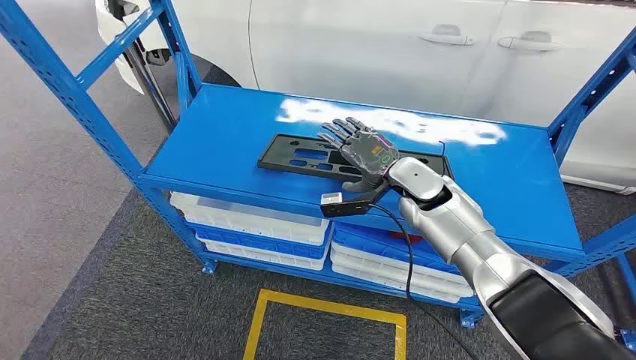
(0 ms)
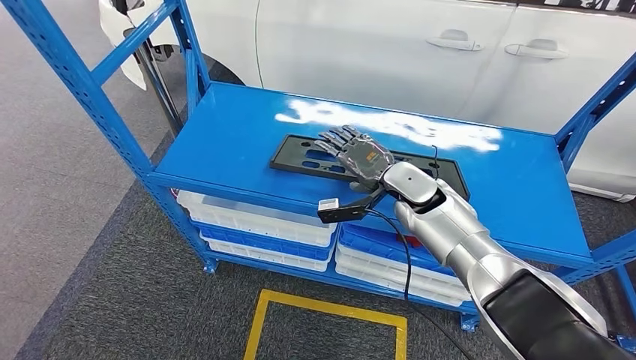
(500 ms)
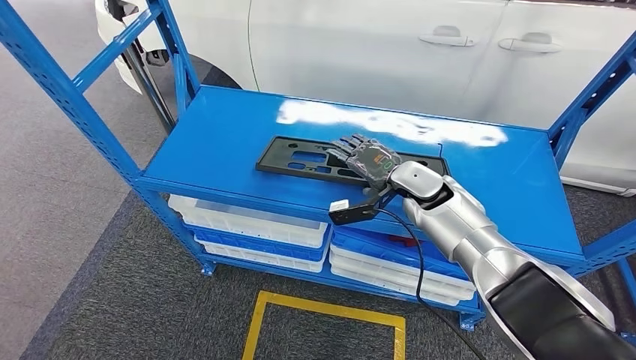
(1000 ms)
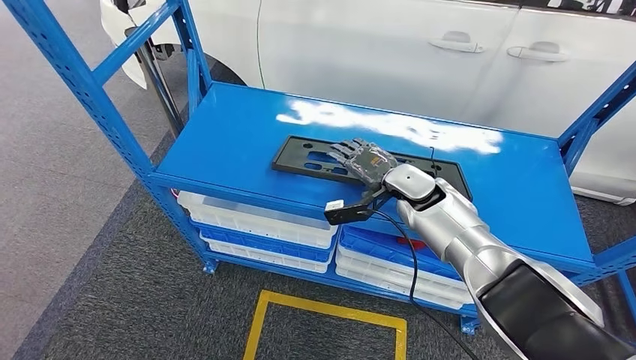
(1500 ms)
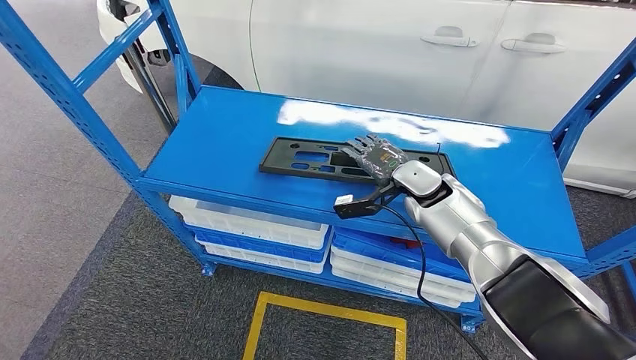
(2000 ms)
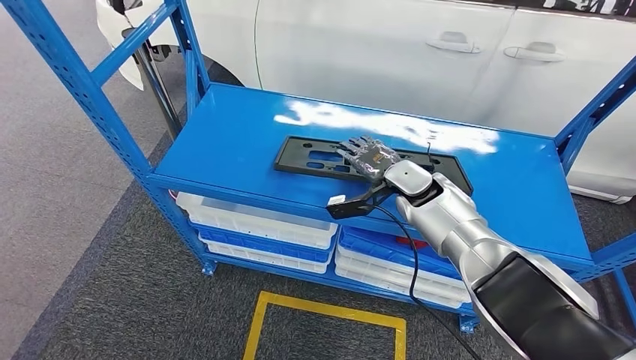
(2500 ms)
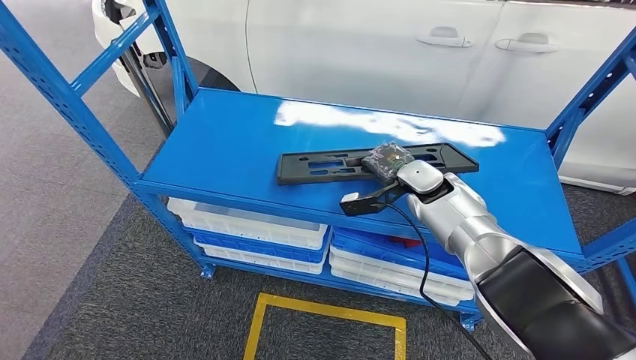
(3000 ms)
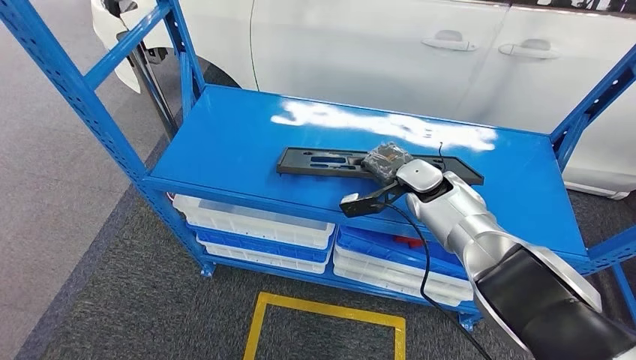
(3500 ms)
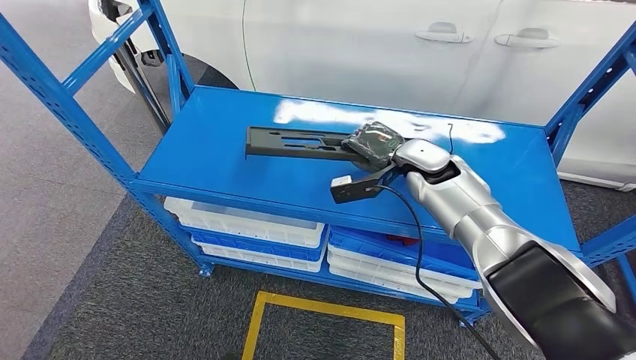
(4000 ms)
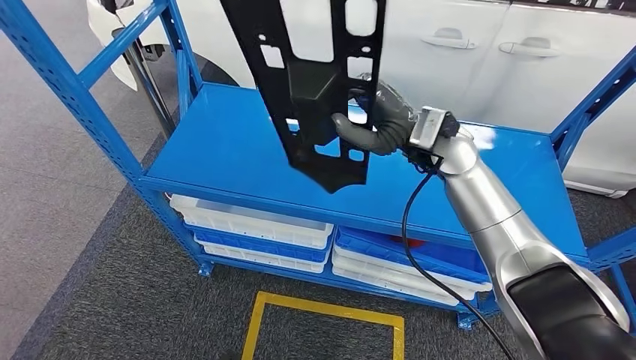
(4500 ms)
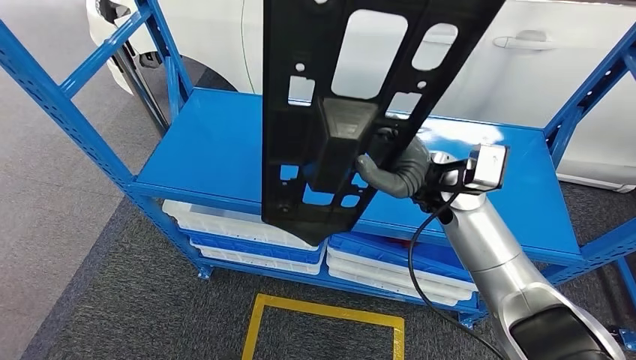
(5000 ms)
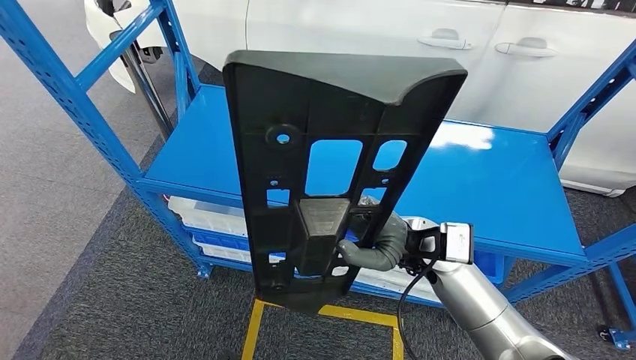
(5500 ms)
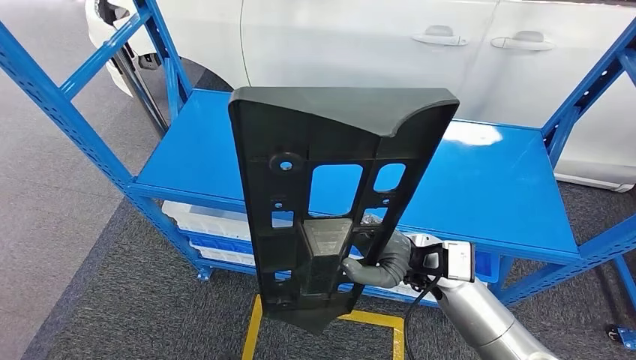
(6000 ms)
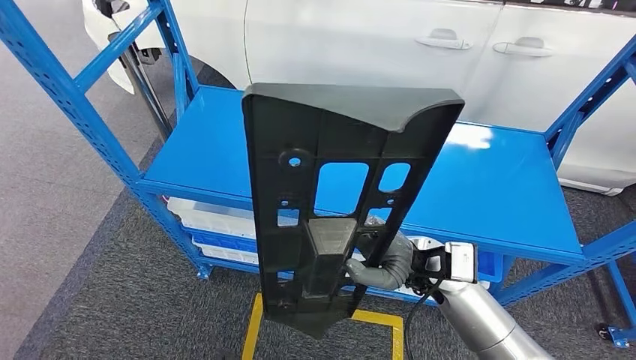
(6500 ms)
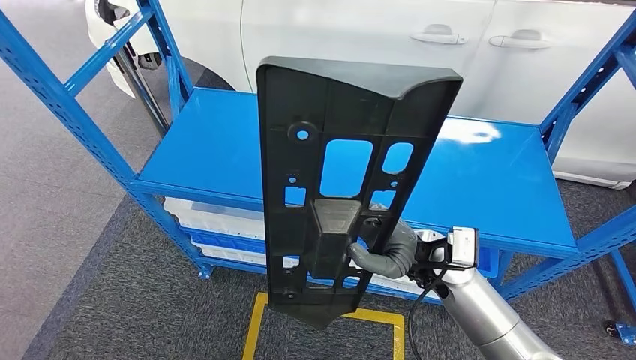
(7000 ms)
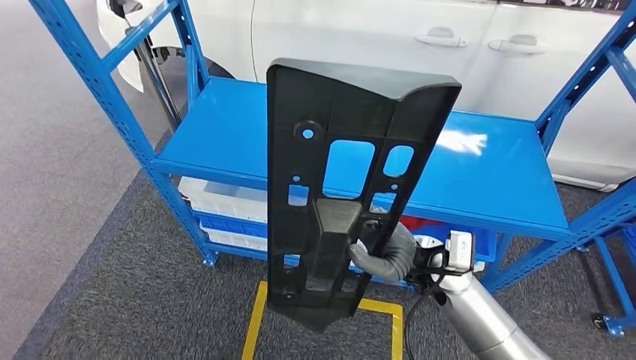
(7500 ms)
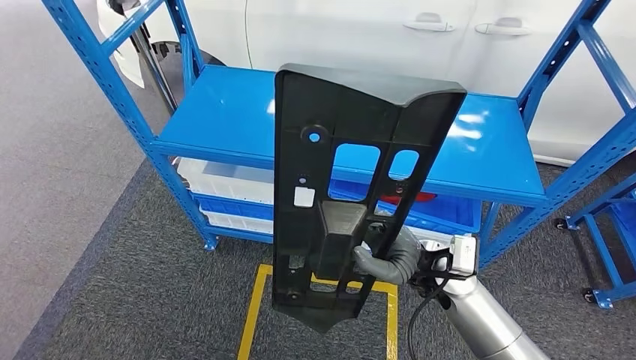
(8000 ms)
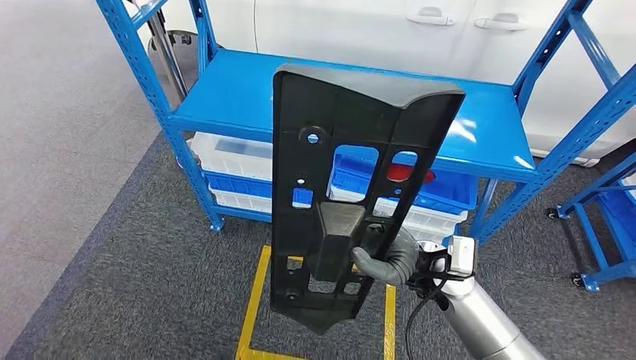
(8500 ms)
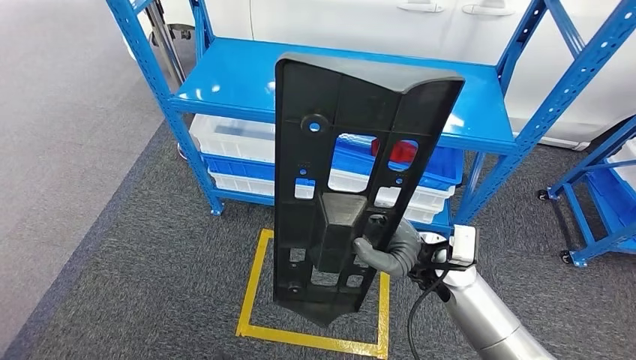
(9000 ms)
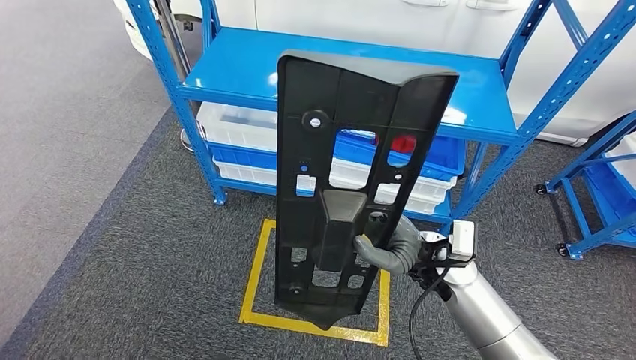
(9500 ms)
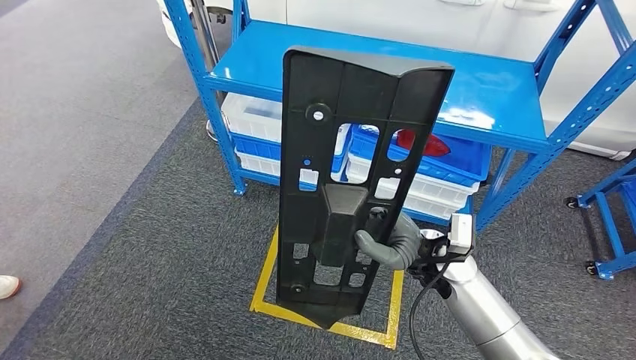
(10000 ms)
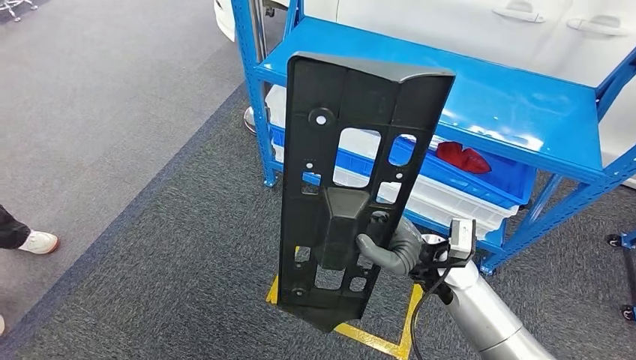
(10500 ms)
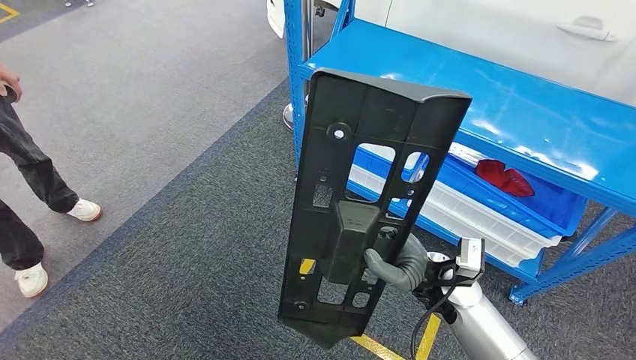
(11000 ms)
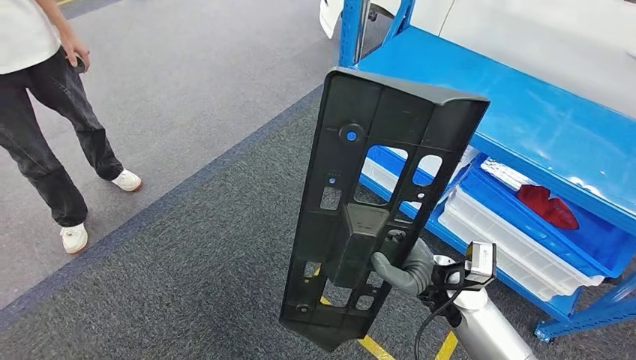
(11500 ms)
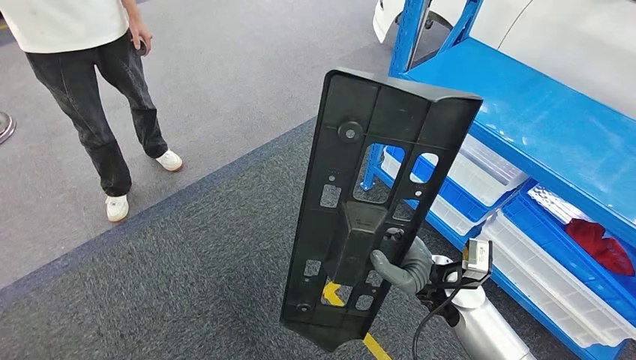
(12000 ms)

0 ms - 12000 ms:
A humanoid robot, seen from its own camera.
Step, 0 ms - 4500 ms: Pick up the large material from the shelf.

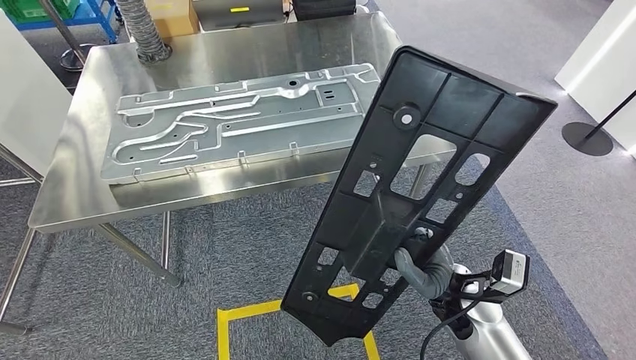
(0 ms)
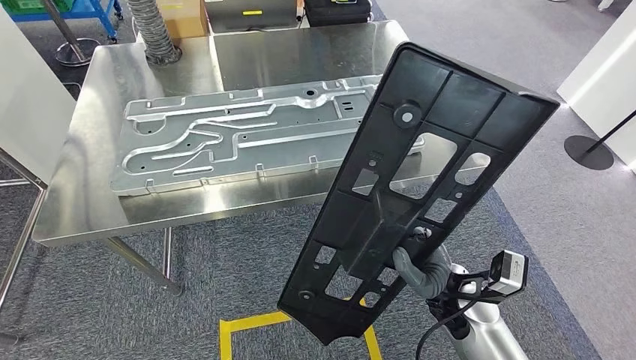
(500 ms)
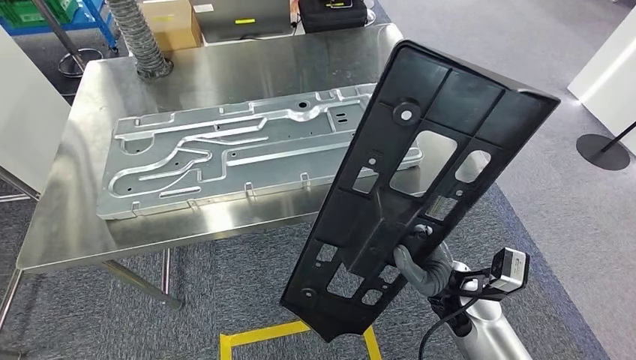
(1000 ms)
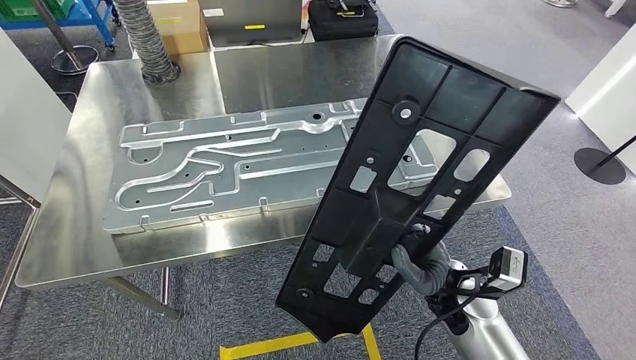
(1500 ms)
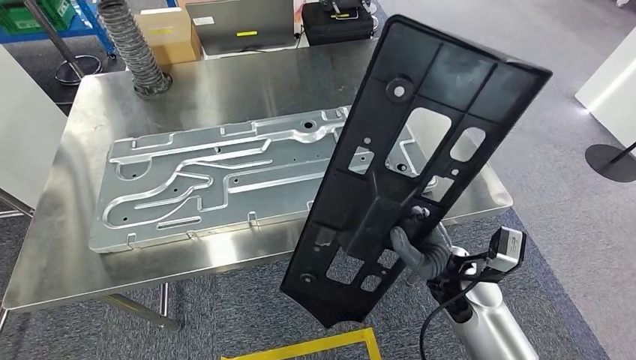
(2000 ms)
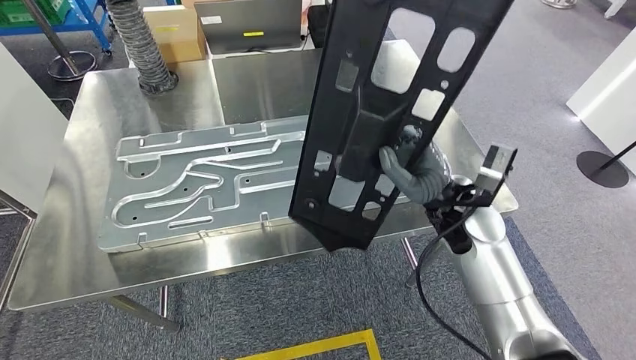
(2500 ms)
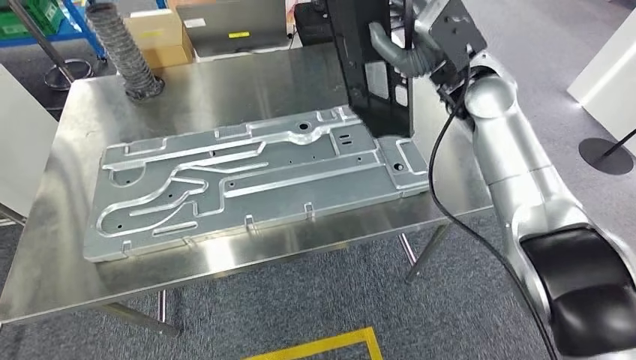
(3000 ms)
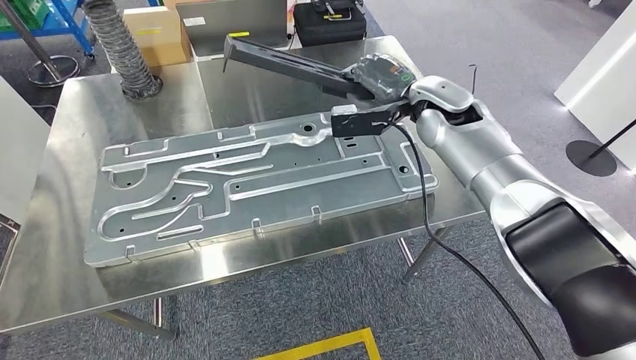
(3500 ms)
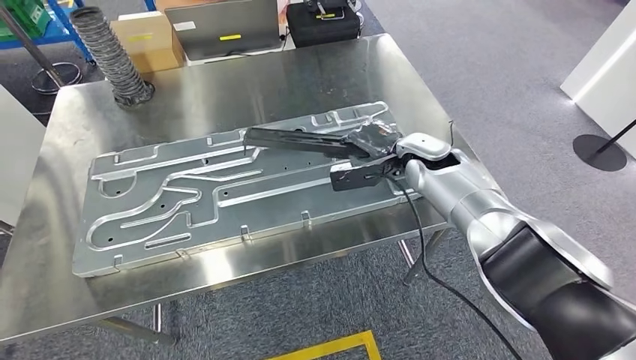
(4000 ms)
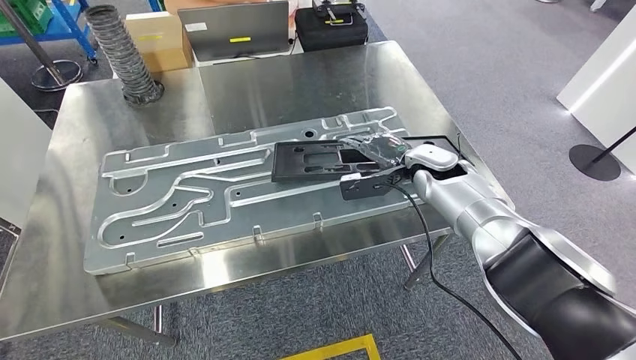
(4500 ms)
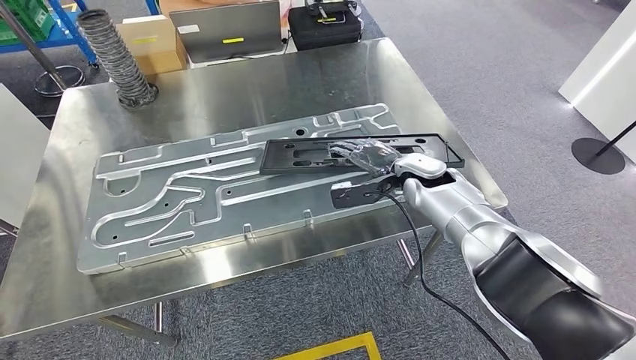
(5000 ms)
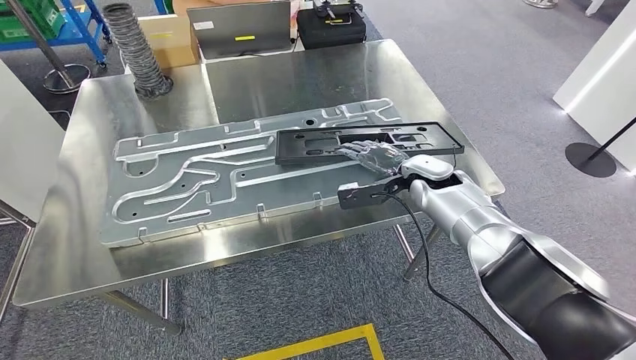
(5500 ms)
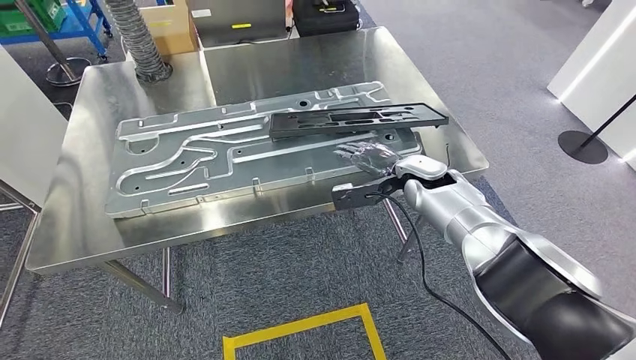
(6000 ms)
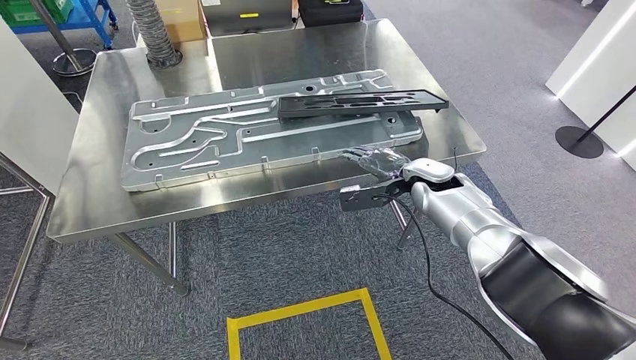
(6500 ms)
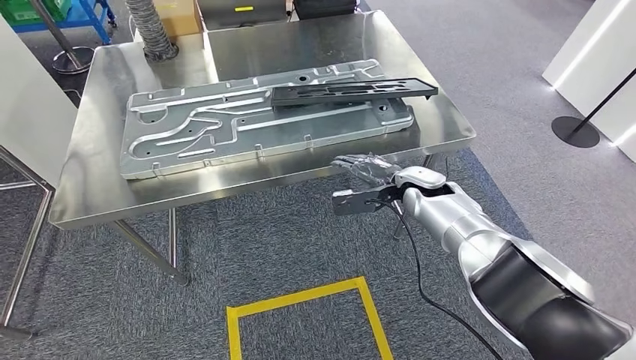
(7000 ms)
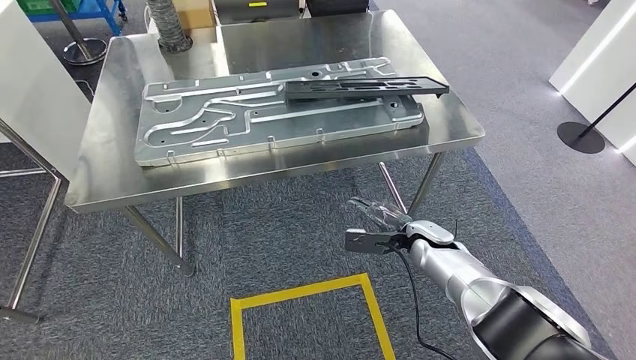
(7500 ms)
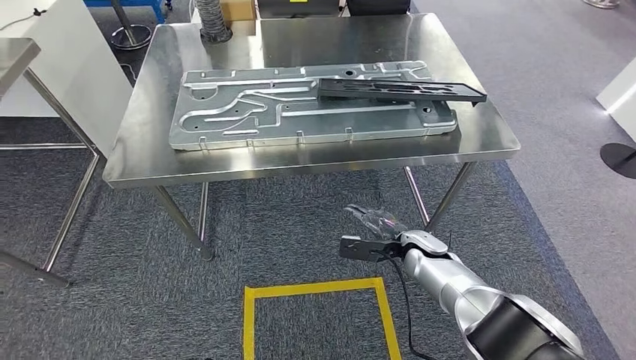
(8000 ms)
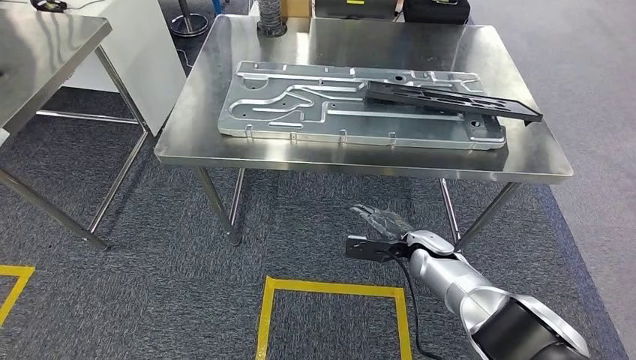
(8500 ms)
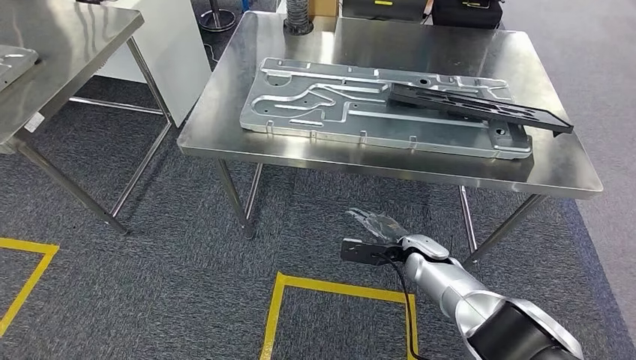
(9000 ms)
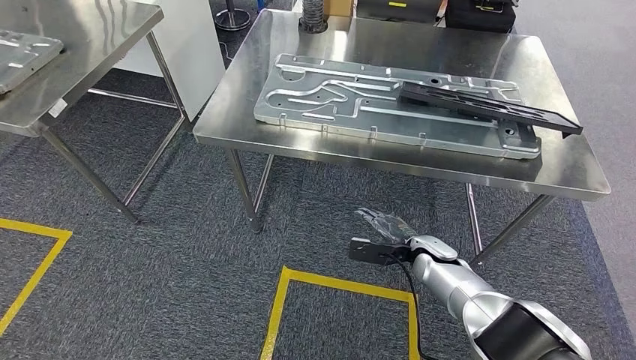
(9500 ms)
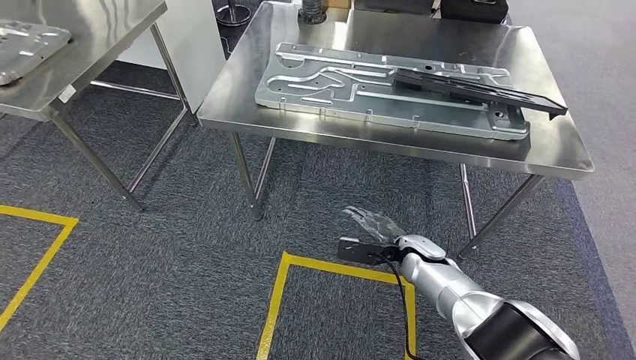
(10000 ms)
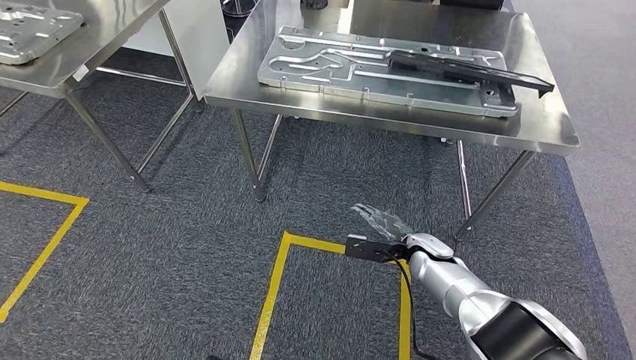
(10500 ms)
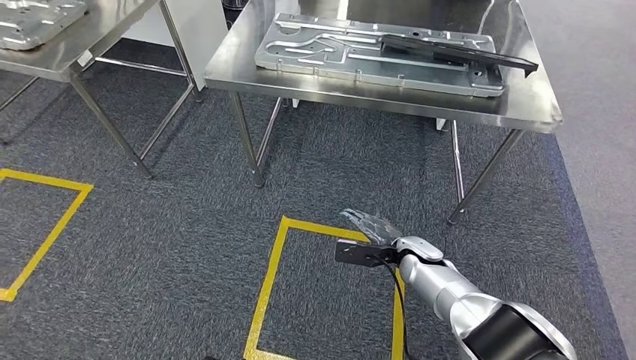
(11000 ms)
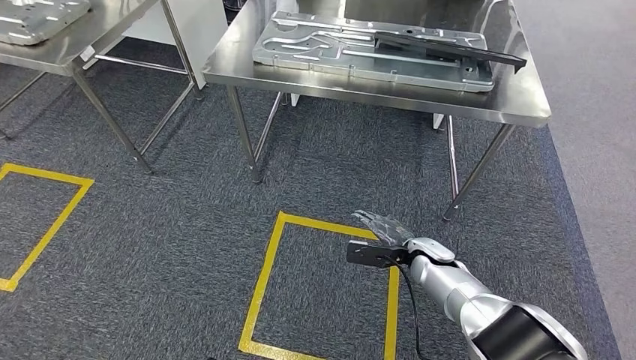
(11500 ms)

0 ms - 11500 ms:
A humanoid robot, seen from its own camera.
Step, 2500 ms - 5000 ms: Insert the large material into the corresponding slot on the workbench.
Step, 6500 ms - 11500 ms: Move to the initial position of the shelf.
